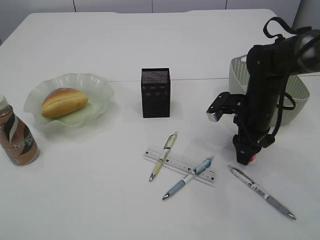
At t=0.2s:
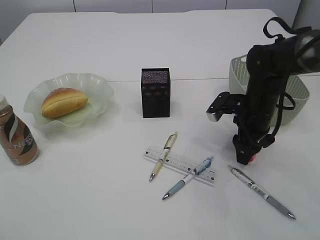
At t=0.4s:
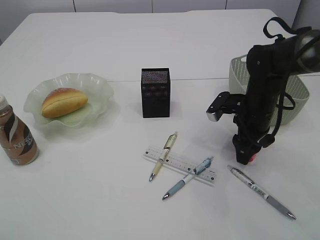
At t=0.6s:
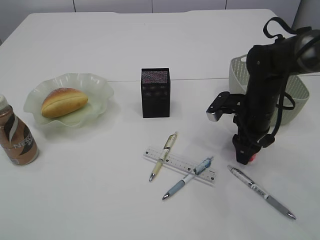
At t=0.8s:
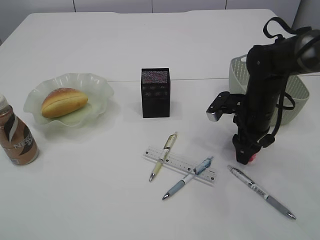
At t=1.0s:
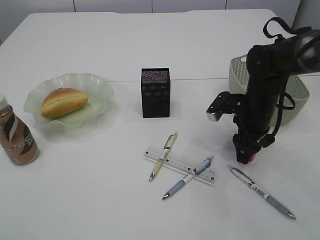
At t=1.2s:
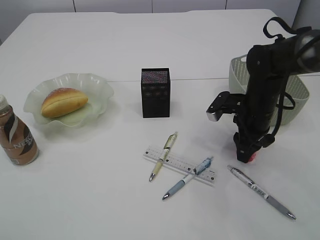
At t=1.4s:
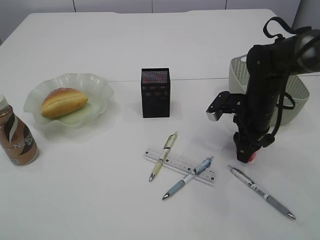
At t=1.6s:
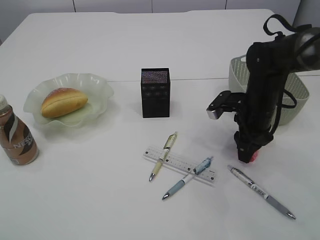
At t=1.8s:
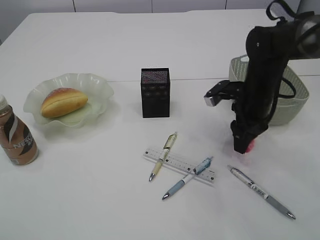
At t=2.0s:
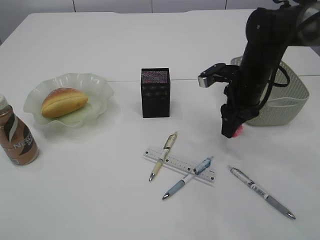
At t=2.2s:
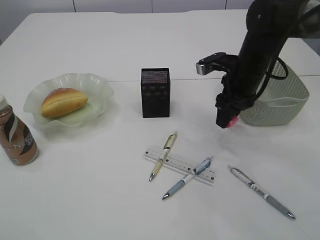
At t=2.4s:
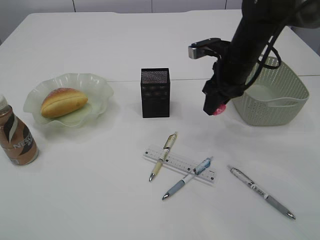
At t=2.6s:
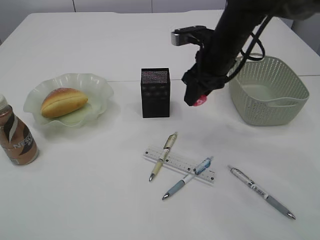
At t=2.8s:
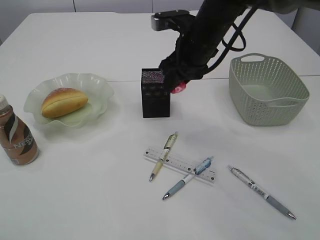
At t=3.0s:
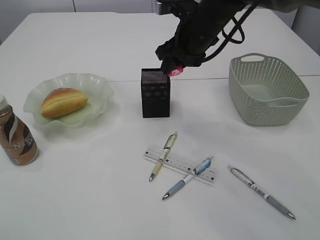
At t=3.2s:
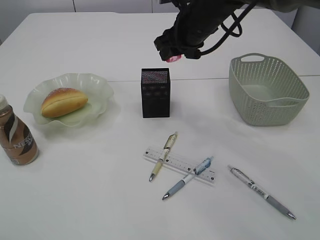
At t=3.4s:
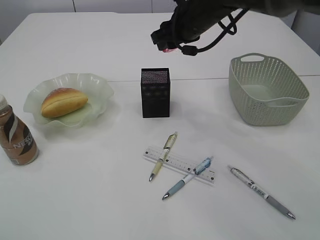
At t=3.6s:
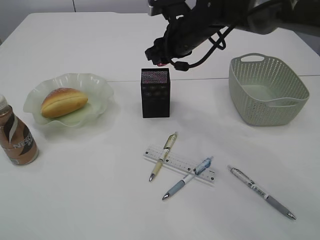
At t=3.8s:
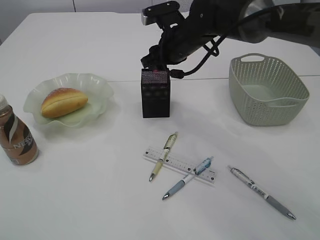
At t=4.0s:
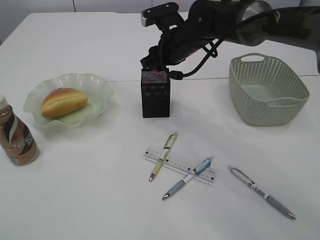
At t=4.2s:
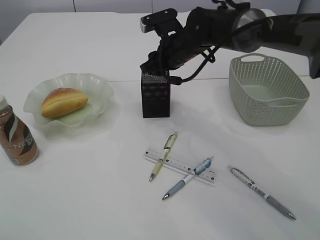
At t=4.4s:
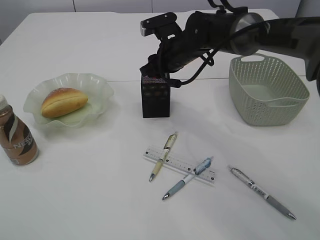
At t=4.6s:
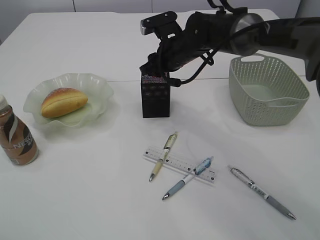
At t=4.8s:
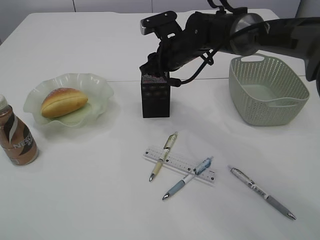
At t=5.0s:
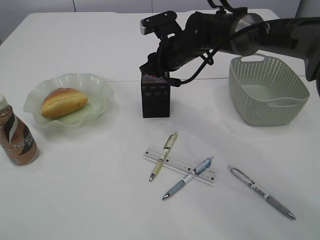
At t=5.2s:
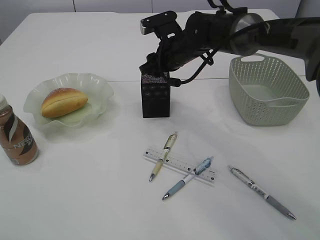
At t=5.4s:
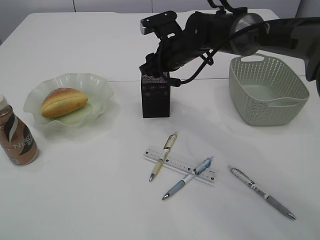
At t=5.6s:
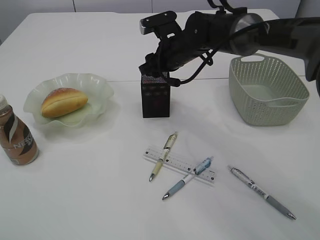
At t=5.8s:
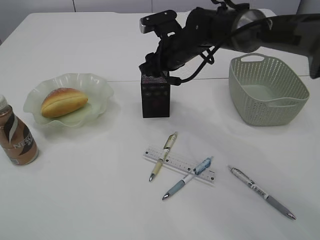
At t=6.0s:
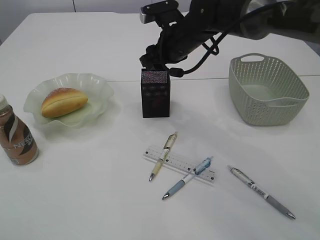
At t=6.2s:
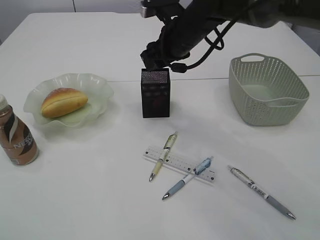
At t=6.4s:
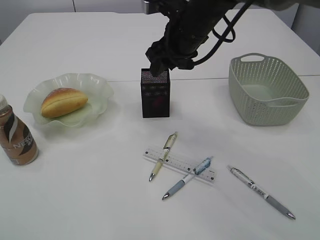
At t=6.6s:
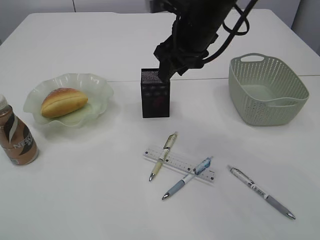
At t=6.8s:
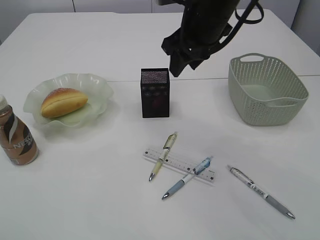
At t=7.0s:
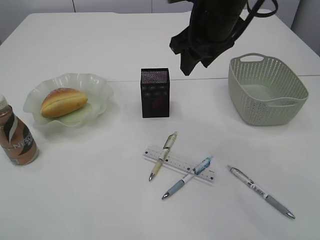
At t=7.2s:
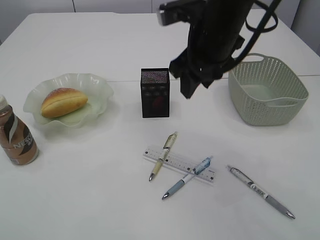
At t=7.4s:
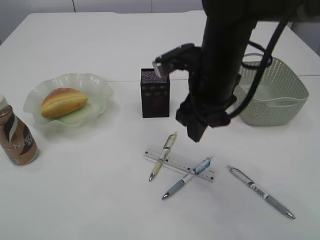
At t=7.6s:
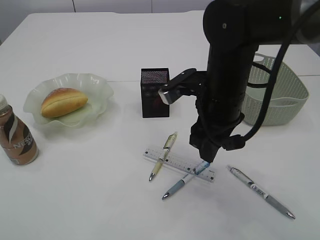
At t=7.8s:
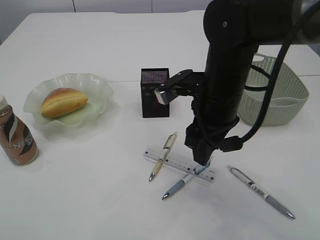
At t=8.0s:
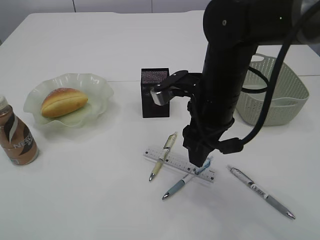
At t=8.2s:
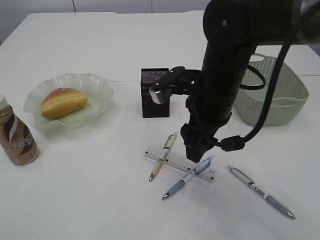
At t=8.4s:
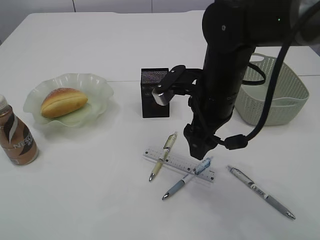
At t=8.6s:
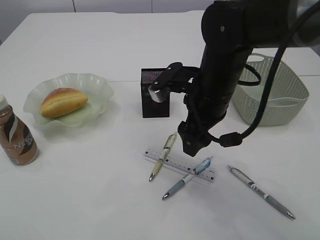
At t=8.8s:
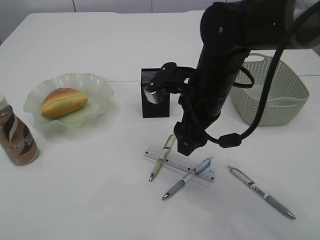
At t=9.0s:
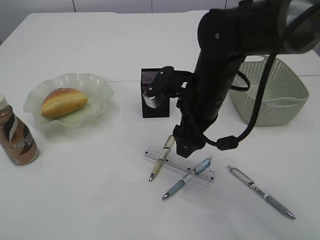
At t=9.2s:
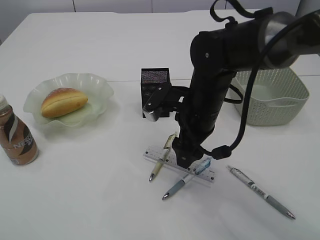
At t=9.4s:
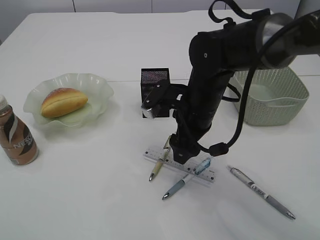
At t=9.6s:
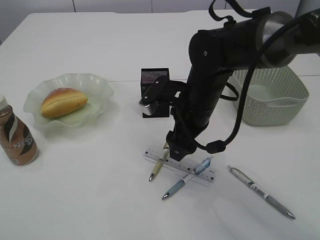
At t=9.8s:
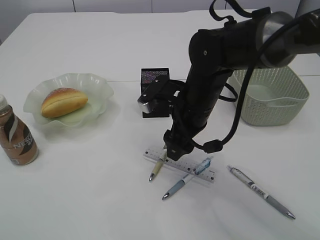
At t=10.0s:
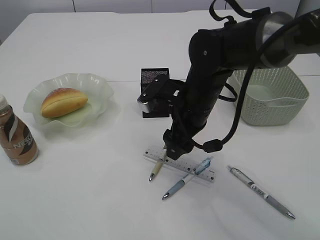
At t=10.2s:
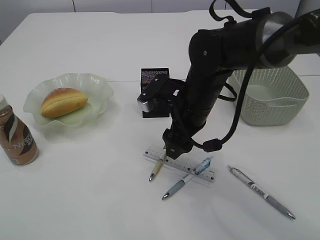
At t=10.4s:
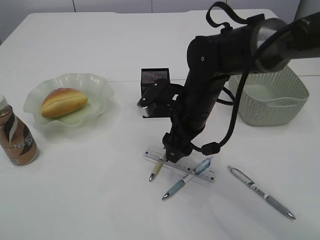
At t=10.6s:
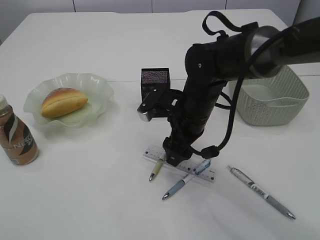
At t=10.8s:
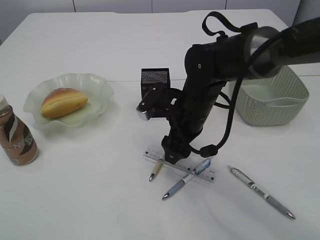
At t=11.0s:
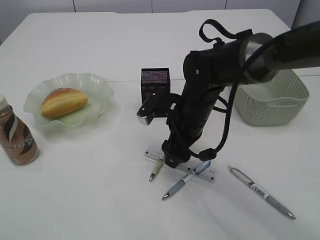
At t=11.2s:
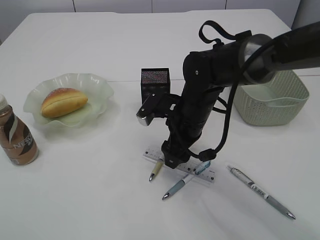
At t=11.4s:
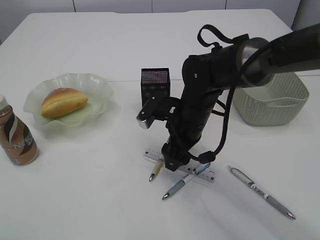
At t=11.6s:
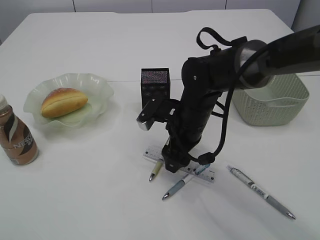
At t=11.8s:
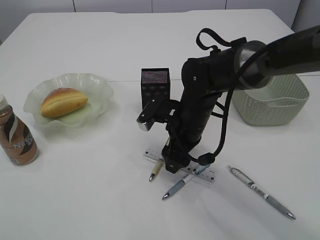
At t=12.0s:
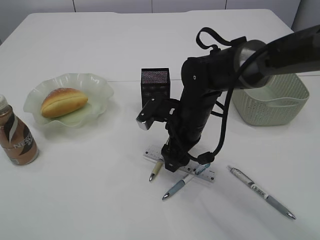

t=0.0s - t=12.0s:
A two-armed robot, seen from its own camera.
Step, t=0.0s - t=2.4s: Pick up the red pencil sharpener.
Step, t=2.6s - t=5.8s: Place the red pencil sharpener into the pen holder.
t=0.0s - t=1.6s: The two grippers keep their place.
t=1.6s - t=3.0s: The right gripper heads upward and to the left, covering roughly 15 cm.
t=3.0s - t=4.4s: The right gripper travels downward by some 5 cm.
t=4.4s - t=6.0s: The grippers stay close to where they were, moving slightly.
t=6.0s - t=7.6s: The right gripper heads backward, covering roughly 15 cm.
t=9.0s - t=10.4s: The grippers make only small movements.
t=10.4s - t=12.0s: The grippers stay close to where they were, moving slightly.

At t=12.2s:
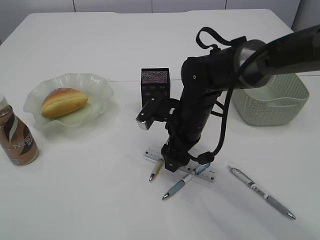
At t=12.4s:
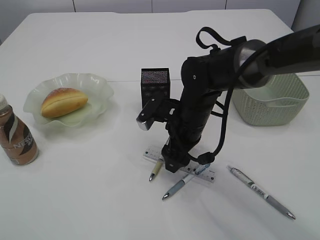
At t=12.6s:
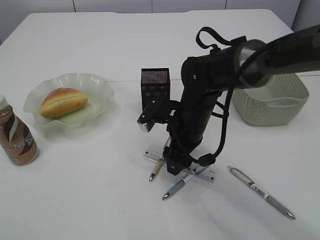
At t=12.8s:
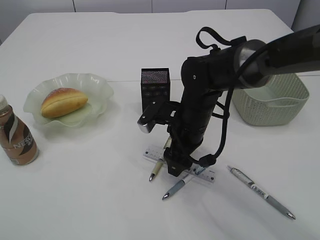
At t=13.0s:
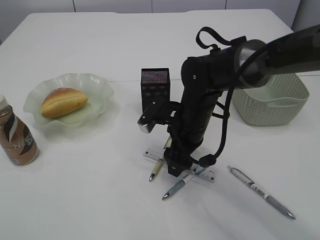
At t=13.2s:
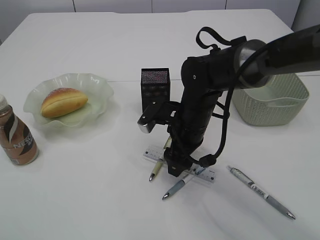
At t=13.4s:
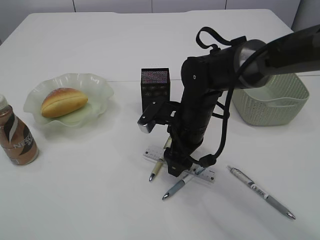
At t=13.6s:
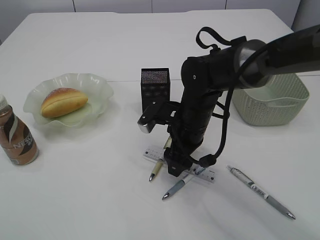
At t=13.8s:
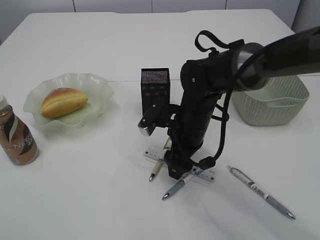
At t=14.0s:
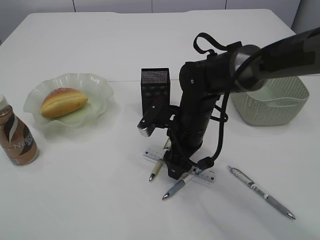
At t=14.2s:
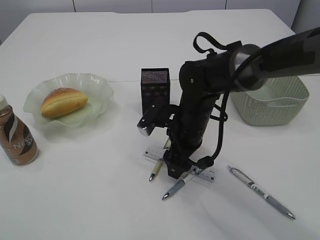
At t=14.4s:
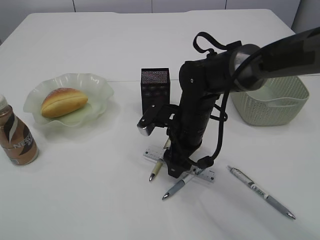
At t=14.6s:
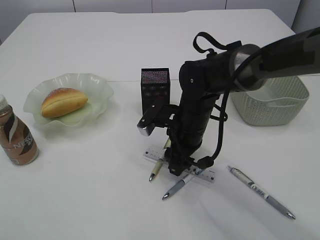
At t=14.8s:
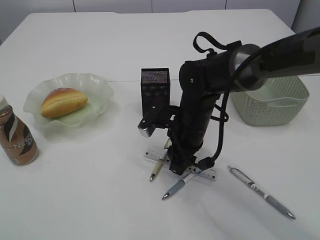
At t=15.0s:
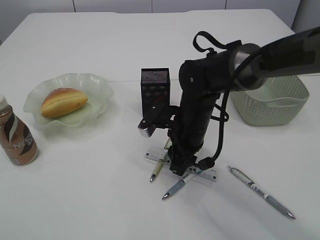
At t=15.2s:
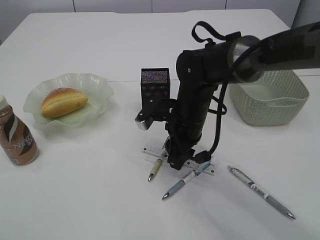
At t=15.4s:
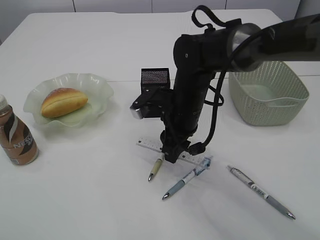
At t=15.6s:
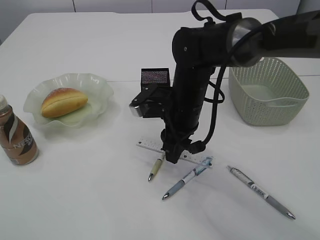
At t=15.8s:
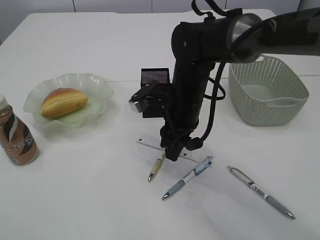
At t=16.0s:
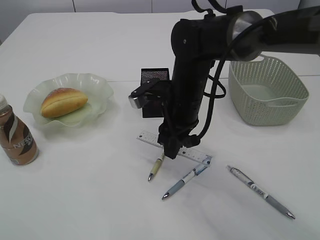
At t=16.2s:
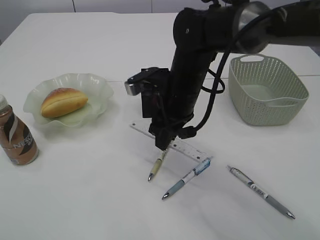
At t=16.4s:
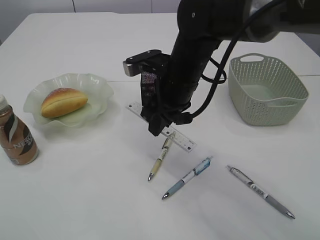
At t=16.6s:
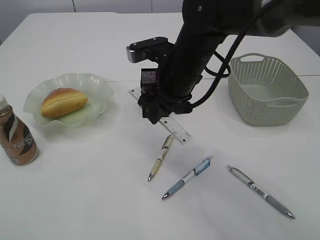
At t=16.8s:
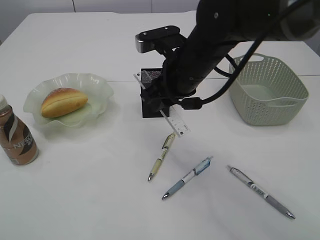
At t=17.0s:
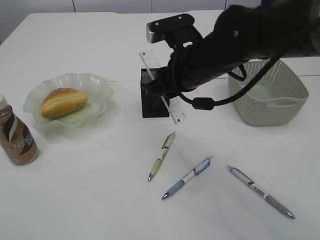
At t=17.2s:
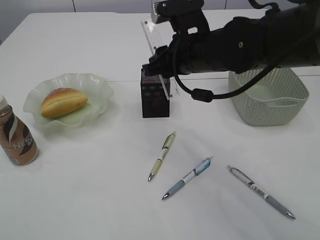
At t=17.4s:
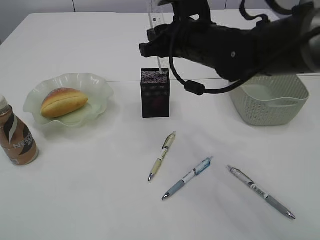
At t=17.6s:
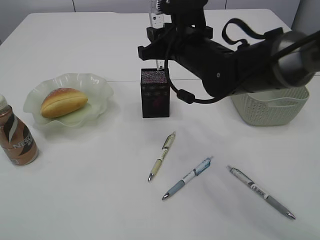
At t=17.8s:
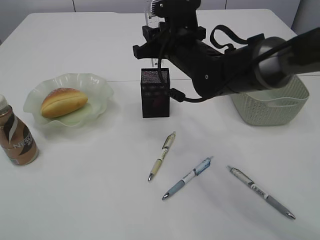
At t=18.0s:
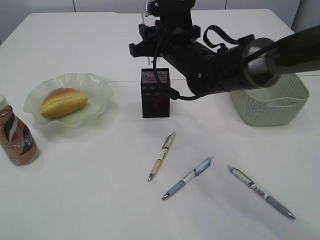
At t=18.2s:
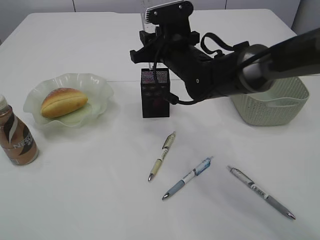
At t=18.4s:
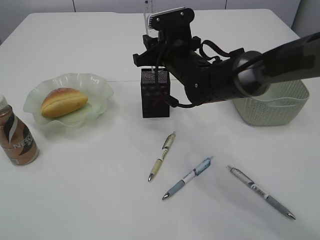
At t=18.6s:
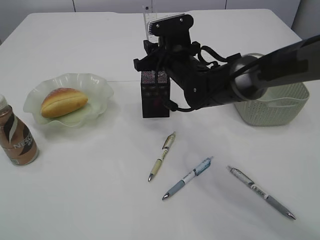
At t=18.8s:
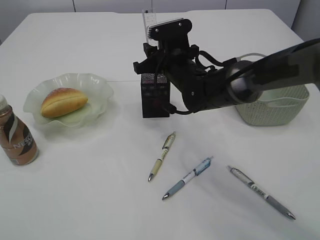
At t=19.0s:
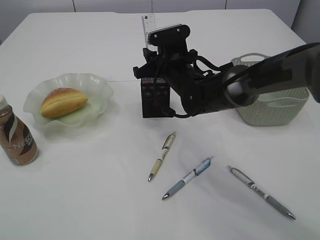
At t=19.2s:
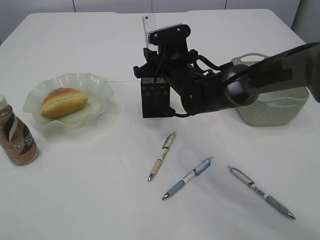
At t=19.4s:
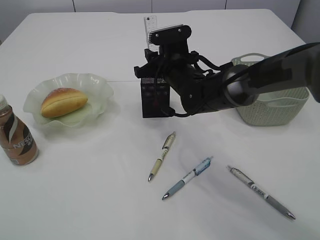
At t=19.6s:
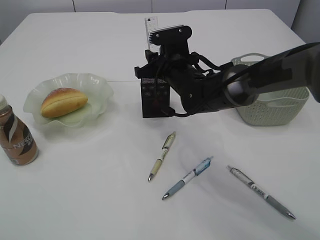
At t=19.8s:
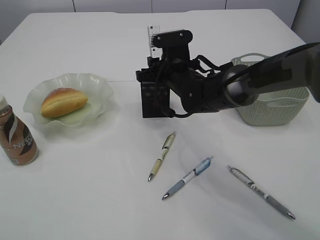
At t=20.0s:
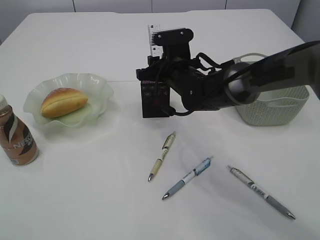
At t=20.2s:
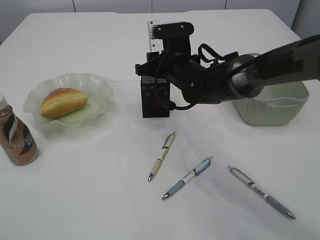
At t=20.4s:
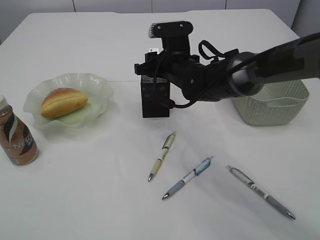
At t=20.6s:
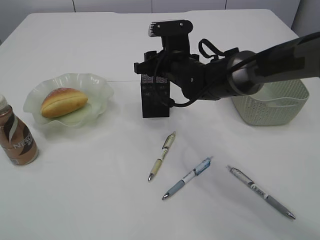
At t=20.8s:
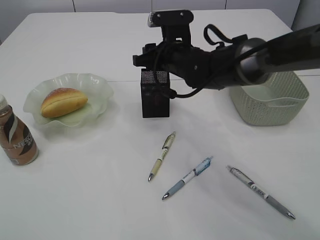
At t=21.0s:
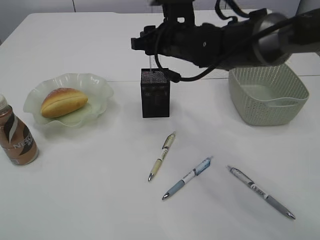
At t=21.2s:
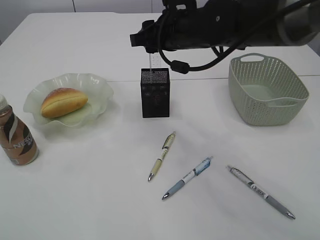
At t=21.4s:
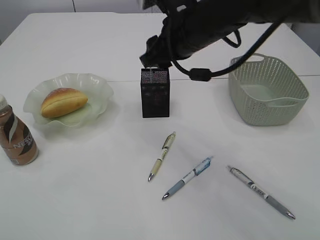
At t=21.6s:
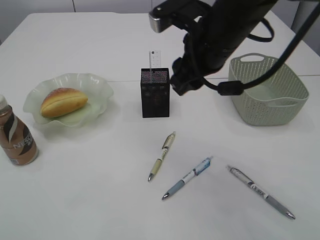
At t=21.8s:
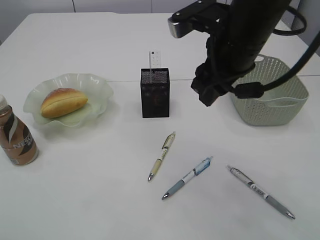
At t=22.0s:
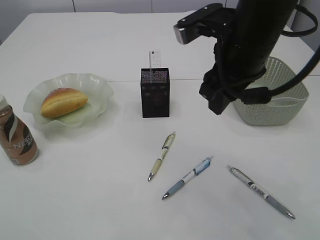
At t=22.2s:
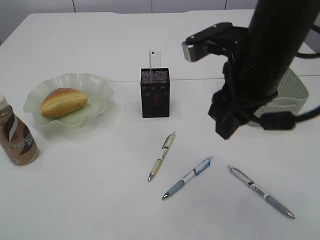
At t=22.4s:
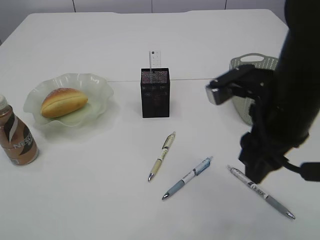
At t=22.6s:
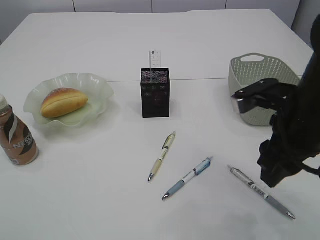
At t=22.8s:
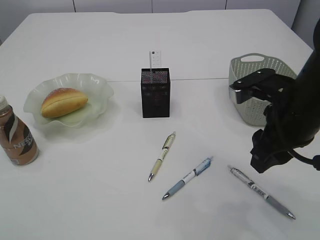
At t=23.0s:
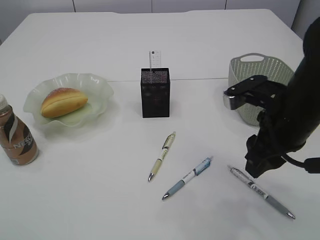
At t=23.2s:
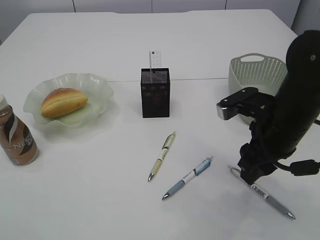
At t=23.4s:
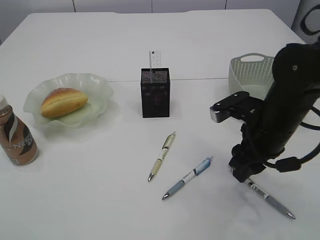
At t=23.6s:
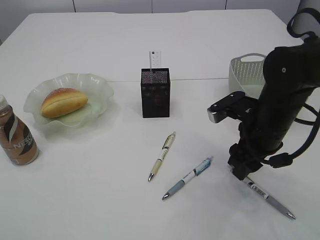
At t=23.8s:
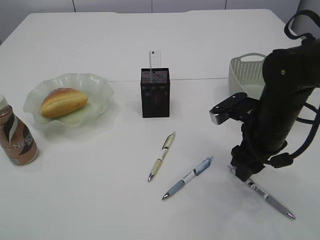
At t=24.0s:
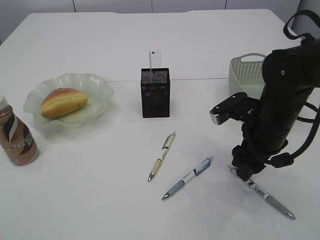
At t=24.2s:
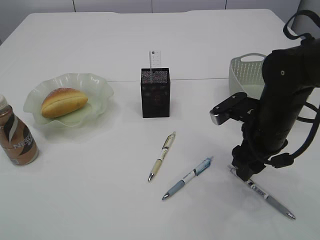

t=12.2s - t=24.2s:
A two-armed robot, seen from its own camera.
Step, t=12.2s - t=16.4s: pick up the ruler.
Step, t=16.6s - t=21.4s: Place the ruler into the pen holder.
t=12.2s - t=13.8s: Both grippers stay put.
t=13.8s - t=15.2s: The right gripper closes up.
t=15.2s - t=16.6s: The right gripper shifts roughly 10 cm upward.
t=16.6s - t=18.2s: The right gripper goes approximately 5 cm forward.
t=18.2s - t=19.8s: The right gripper shifts roughly 5 cm downward.
t=19.8s - t=21.2s: The right gripper moves upward, roughly 10 cm.
t=21.2s - t=22.6s: The right gripper heads backward and to the right, covering about 20 cm.
t=22.6s - t=24.2s: The right gripper is displaced downward and forward by roughly 10 cm.
